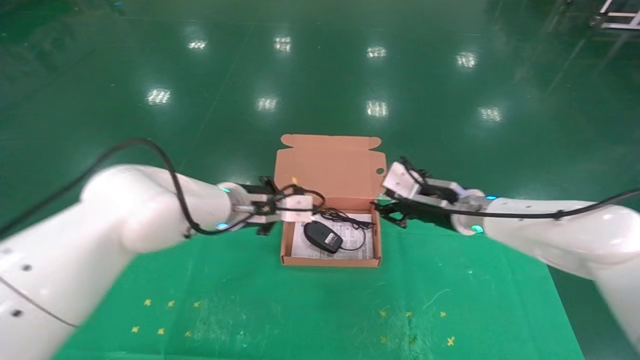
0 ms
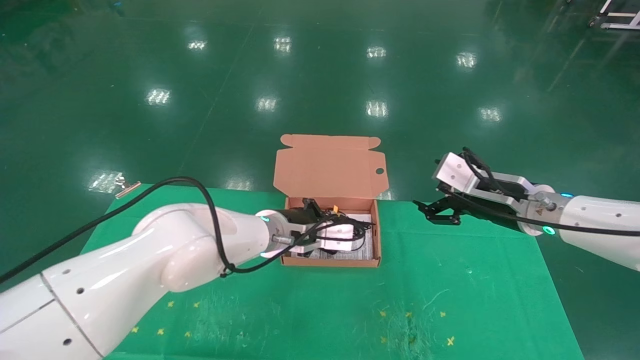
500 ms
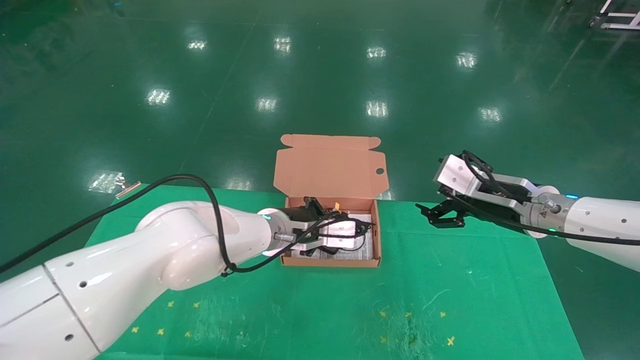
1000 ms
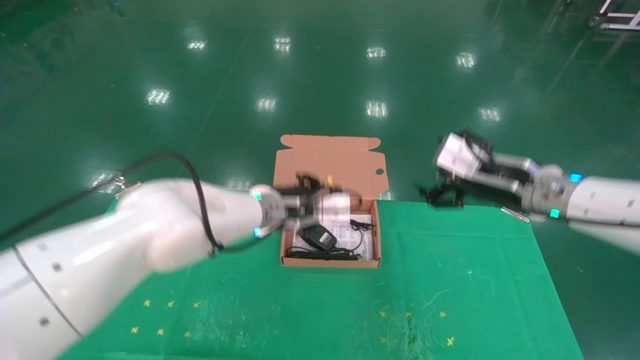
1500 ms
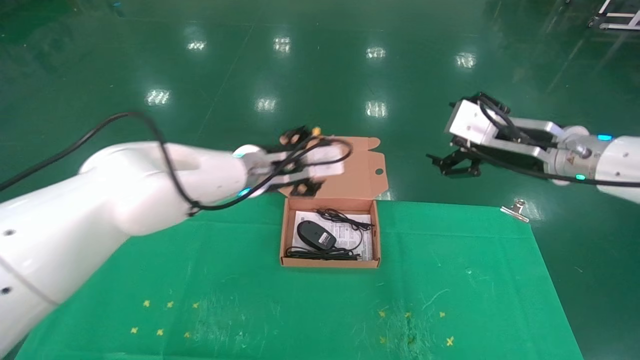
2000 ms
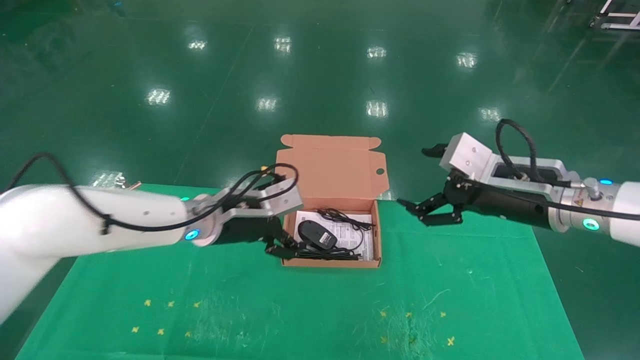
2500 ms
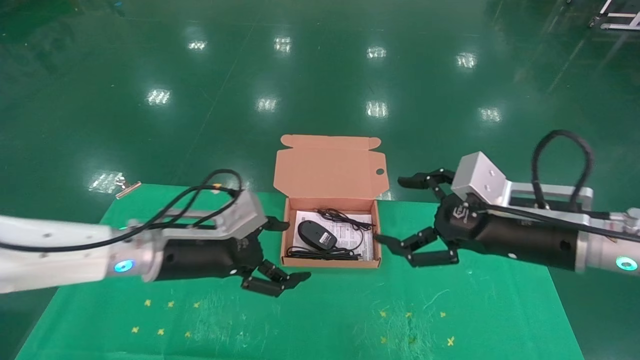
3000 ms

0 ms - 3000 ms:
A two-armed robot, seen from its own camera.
Task of the whole recording: grasp data cable left put into box grasp mouse right put into box.
0 ms - 1500 ms: The right gripper travels upward, backward and to the right by about 10 cm, and opens up. The left gripper travels to the right by approximately 5 cm.
1500 ms - 3000 ms: The right gripper shifts some 10 cm backward. Meanwhile the left gripper moves to the left and backward, some 15 cm, and opens up.

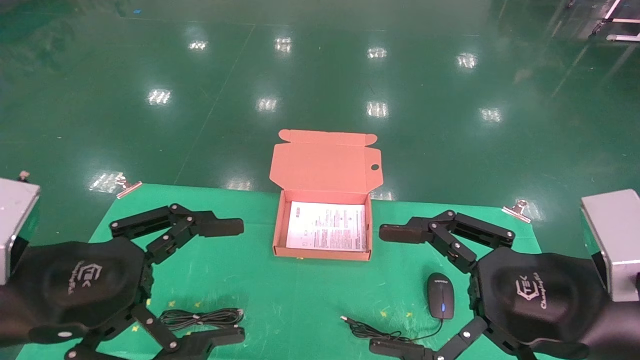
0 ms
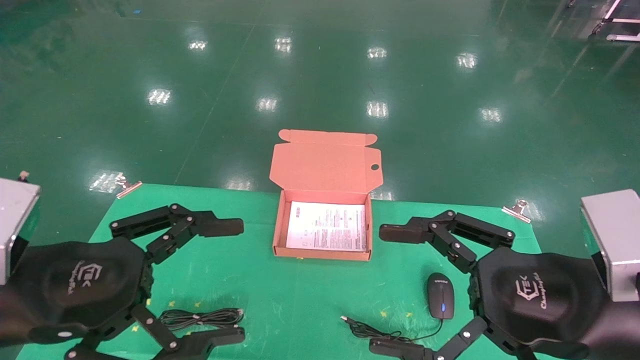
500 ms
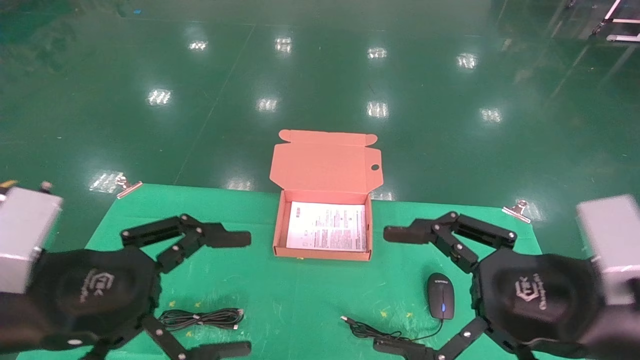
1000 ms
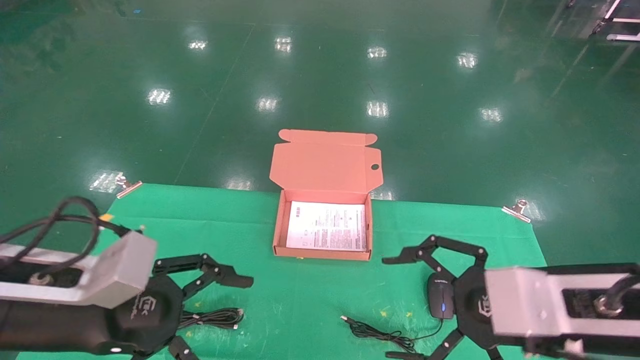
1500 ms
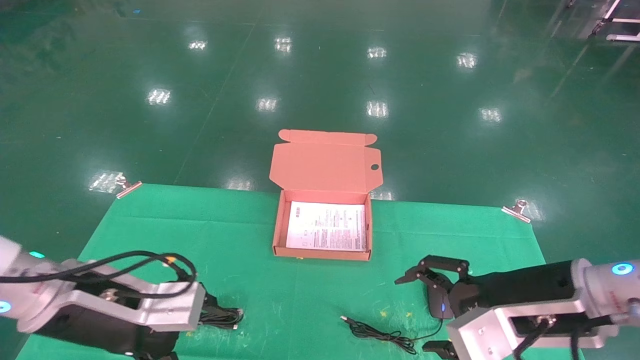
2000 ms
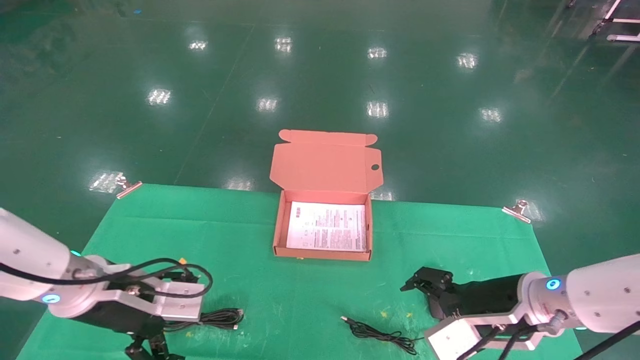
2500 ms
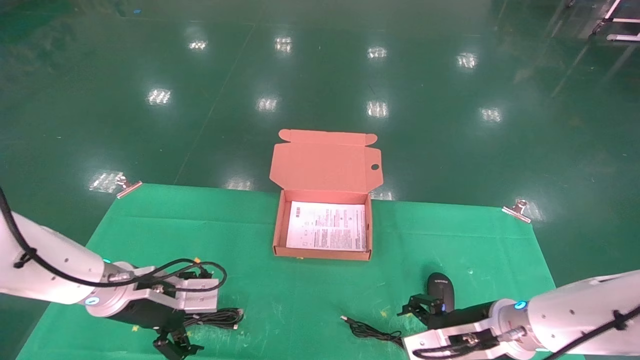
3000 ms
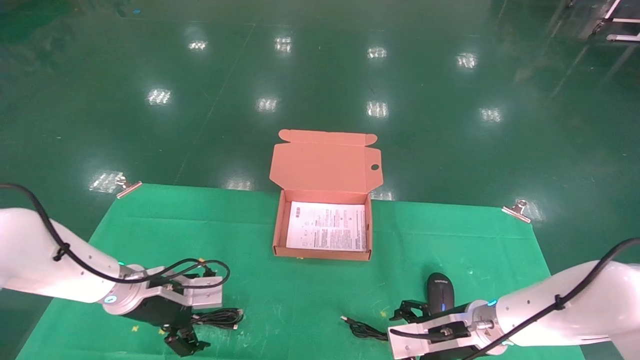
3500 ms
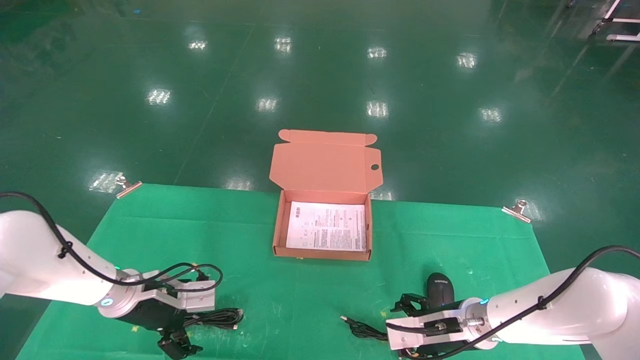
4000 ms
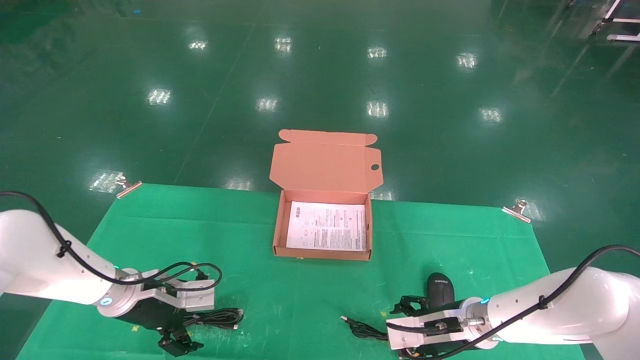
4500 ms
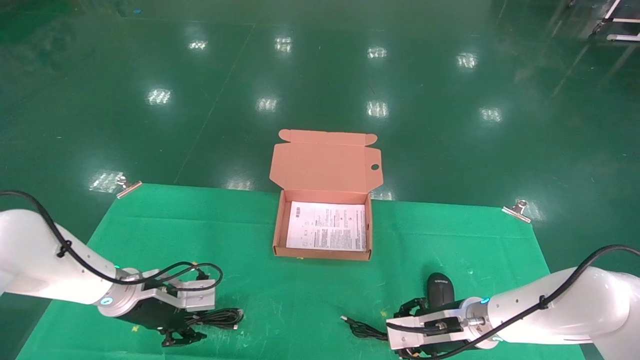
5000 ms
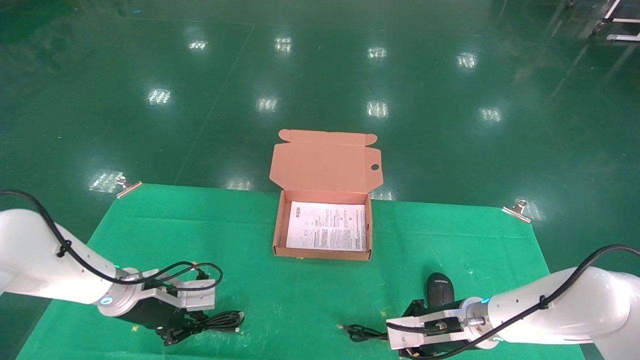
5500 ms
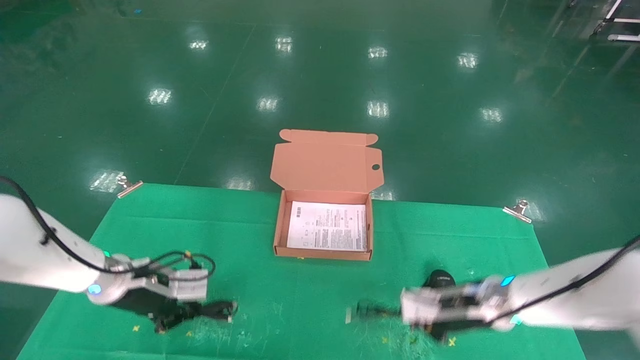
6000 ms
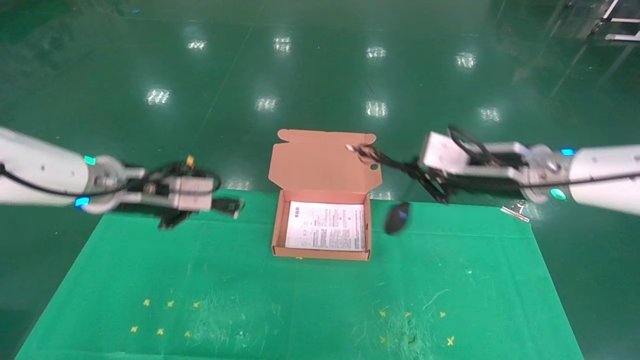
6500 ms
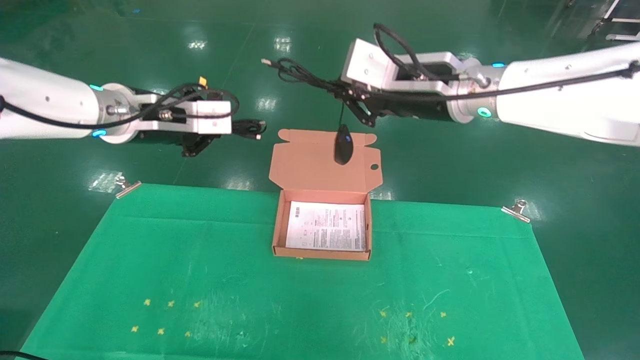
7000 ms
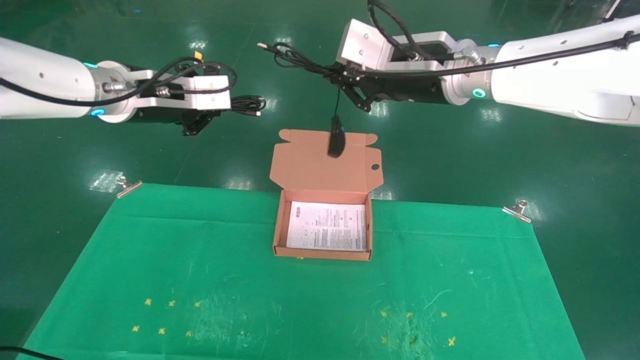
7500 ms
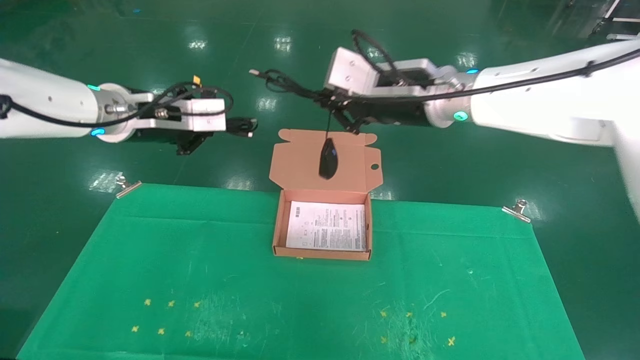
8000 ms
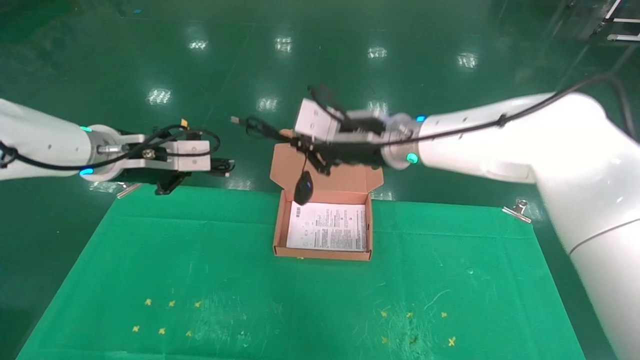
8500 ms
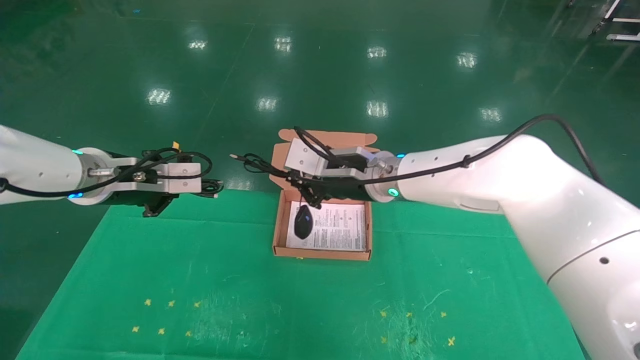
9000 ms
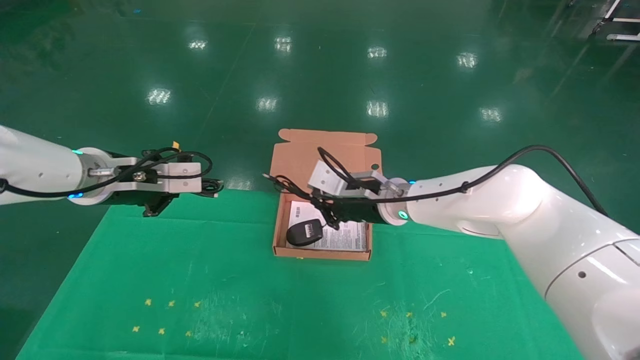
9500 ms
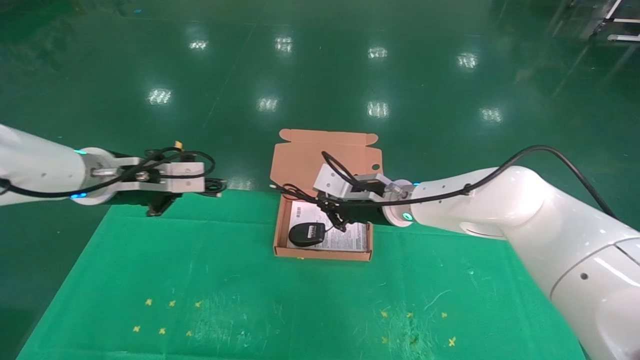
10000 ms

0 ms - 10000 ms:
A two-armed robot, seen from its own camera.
Task of the whole recording: grasp data cable left put into box grasp mouse right put into box.
Step, 1500 ms - 5500 ms: Grab and pick up both the mouse and power cord from the accessory packaging area at the same time.
0 ms - 2000 ms: The right gripper goes roughly 10 cm forward, while the left gripper shifts some 10 cm forward and downward.
2000 ms - 4000 ms: The right gripper is displaced downward and forward by some 20 cm. The left gripper goes approximately 20 cm forward and downward.
4000 ms - 6000 ms: The left gripper closes up; the right gripper is displaced upward by roughly 5 cm, and closes.
6000 ms - 8000 ms: The left gripper is displaced upward by some 20 cm; the right gripper shifts roughly 30 cm upward and to the left.
8000 ms - 10000 ms: The left gripper shifts approximately 5 cm downward; the right gripper heads downward, covering about 15 cm.

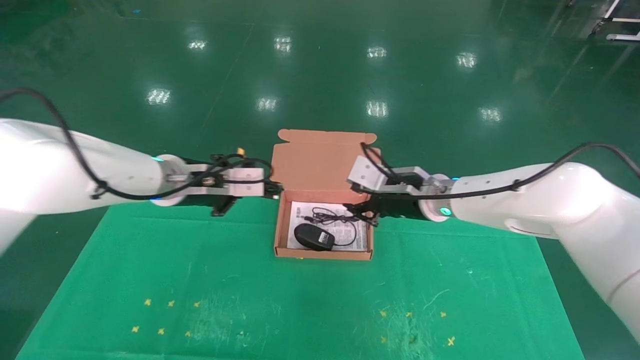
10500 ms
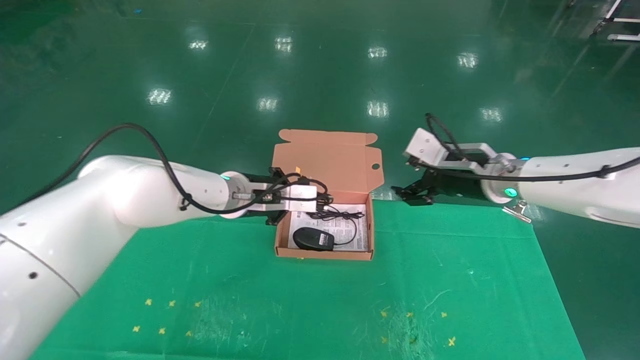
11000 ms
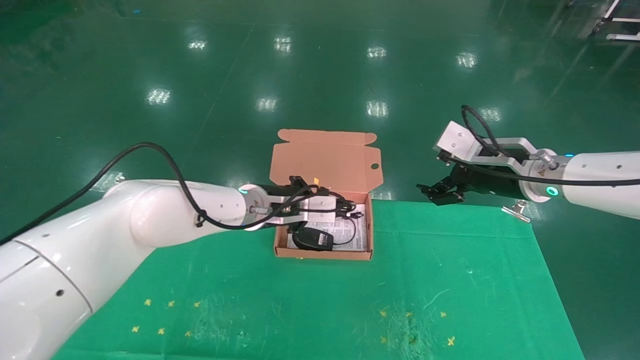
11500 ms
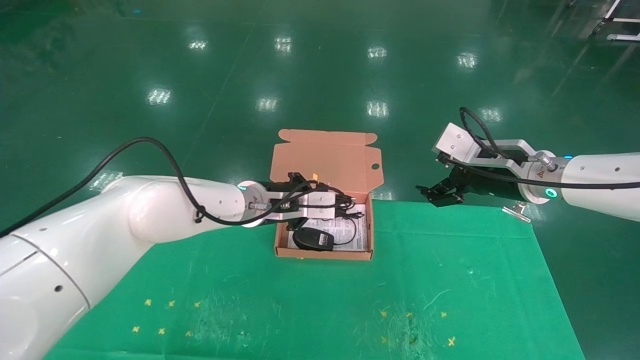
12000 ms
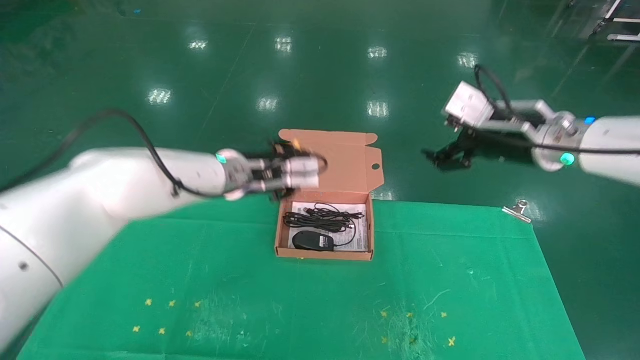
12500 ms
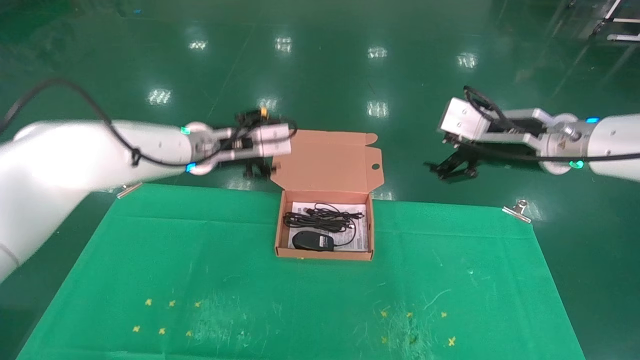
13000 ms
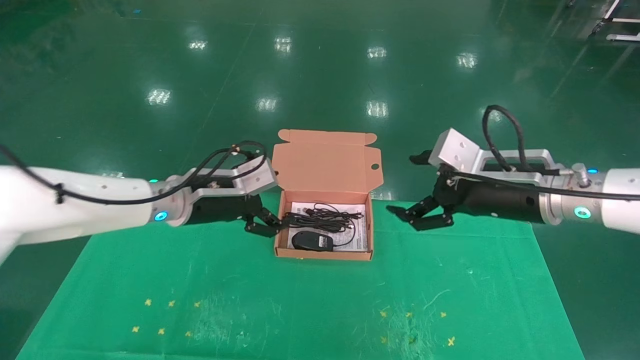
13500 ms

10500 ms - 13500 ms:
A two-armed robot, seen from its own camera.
Task of the whole recording: grasp data cable left put into box grasp mouse right put into box.
10500 ms - 12000 ms: Both grippers move to the right, about 10 cm. The right gripper opens up.
12000 ms - 13500 ms: The left gripper is displaced to the left by approximately 10 cm, and opens its fingers, while the right gripper goes roughly 5 cm backward.

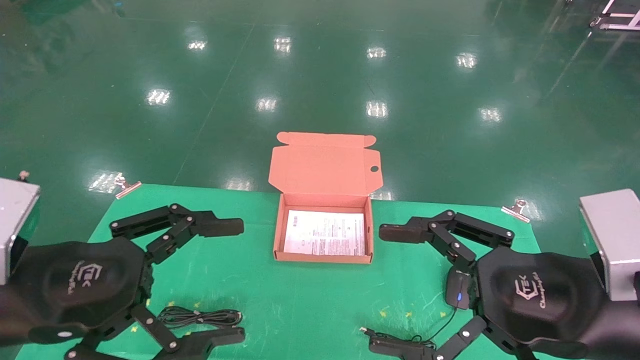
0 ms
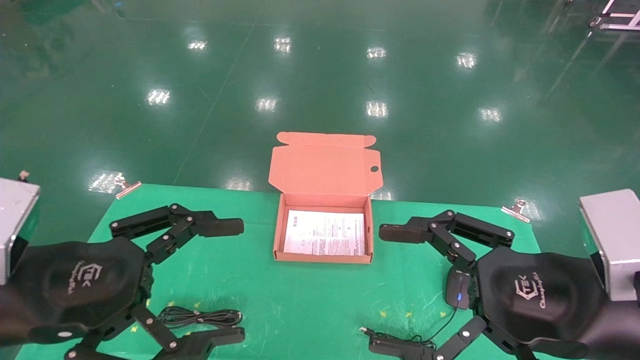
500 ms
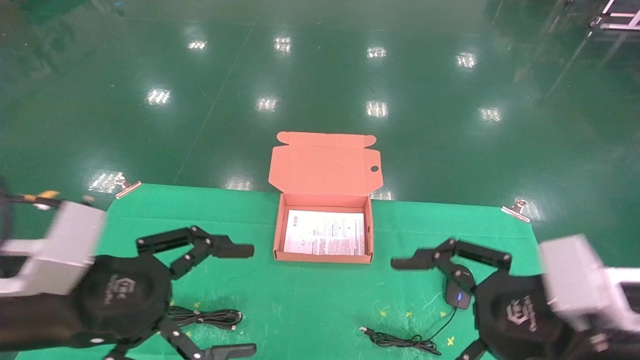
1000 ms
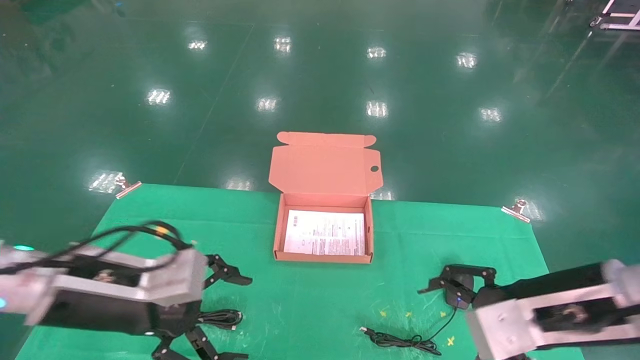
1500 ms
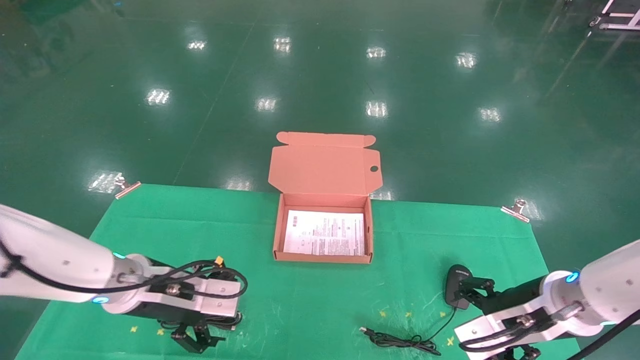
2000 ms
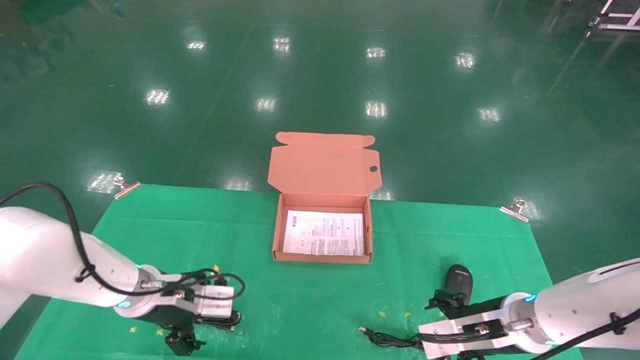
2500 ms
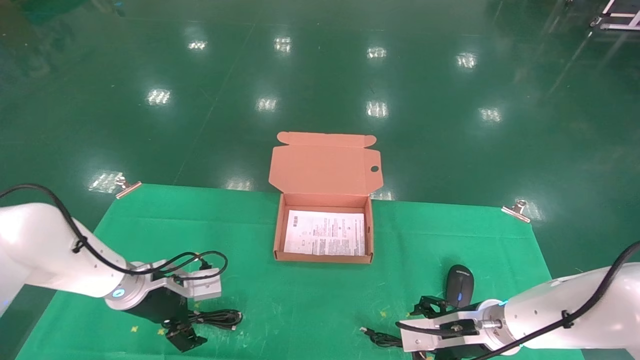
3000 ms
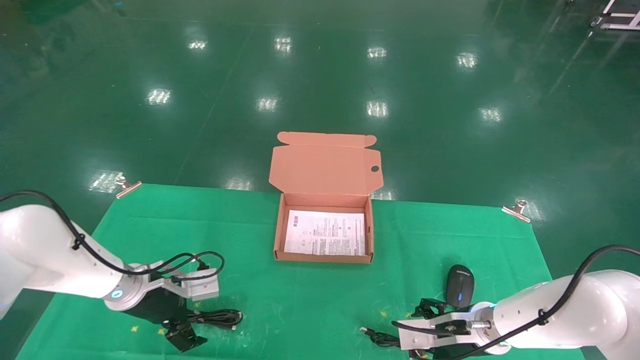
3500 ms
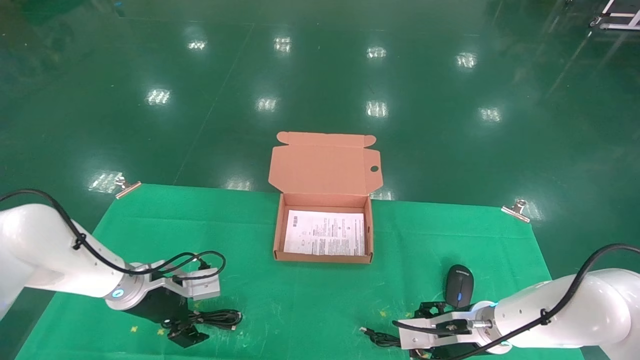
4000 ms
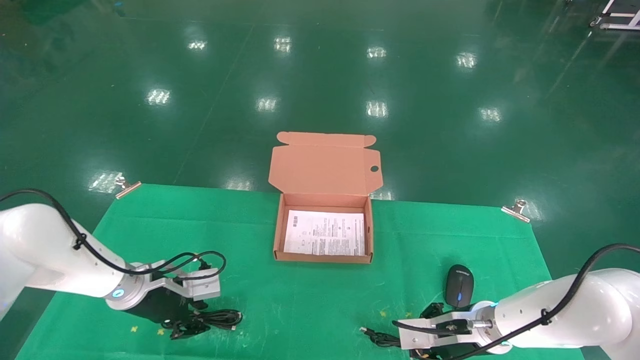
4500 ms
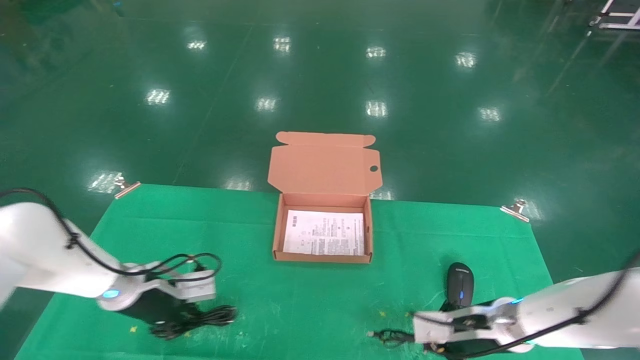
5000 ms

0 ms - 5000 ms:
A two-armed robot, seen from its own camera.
Task of the whole recording: grasp data cable left put into box grasp mouse right put into box.
0 ms - 2500 ms: Both grippers move forward and downward, some 25 cm.
2500 ms - 5000 ms: The left gripper shifts about 5 cm to the left, and closes its fingers. Meanwhile the right gripper closes up.
